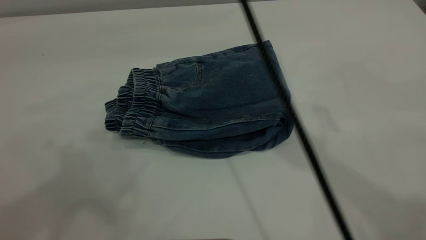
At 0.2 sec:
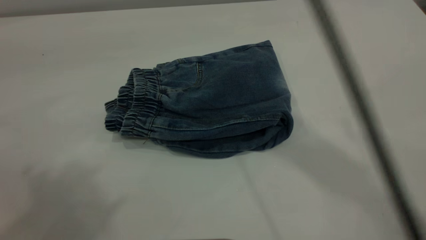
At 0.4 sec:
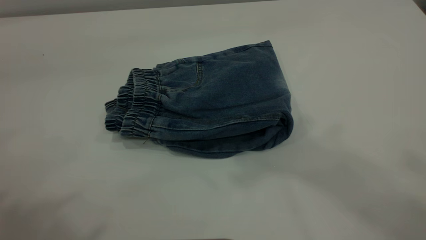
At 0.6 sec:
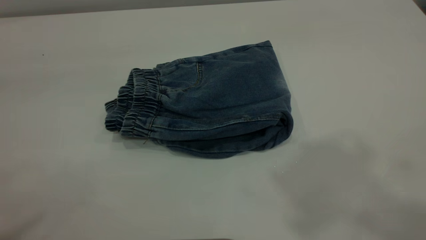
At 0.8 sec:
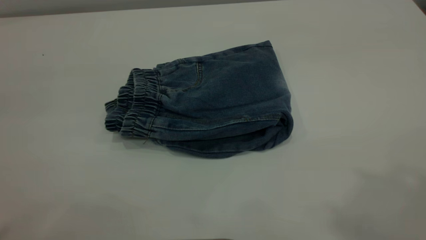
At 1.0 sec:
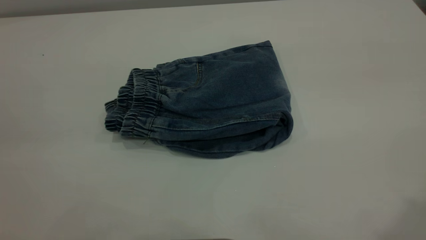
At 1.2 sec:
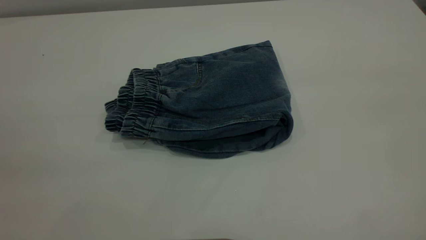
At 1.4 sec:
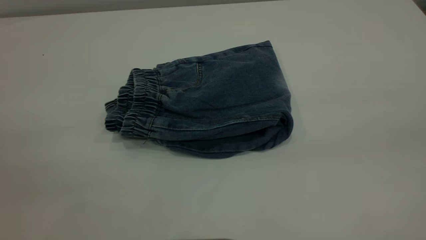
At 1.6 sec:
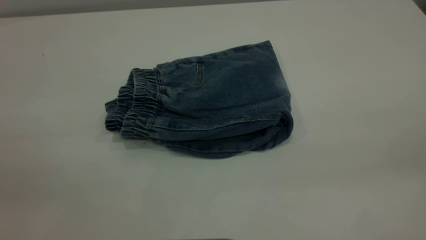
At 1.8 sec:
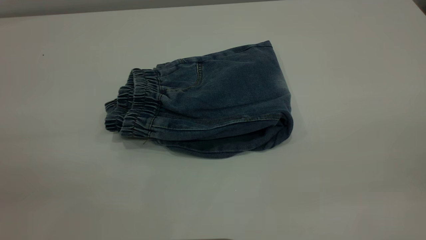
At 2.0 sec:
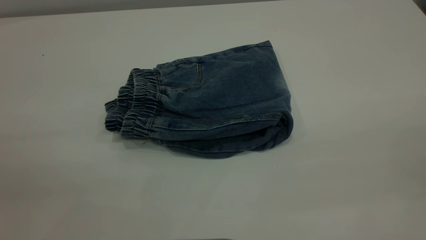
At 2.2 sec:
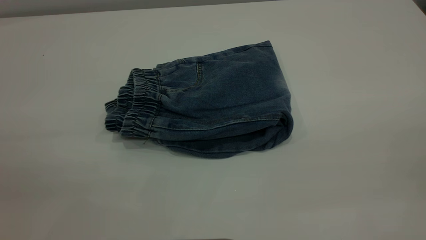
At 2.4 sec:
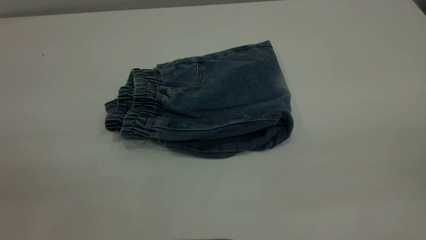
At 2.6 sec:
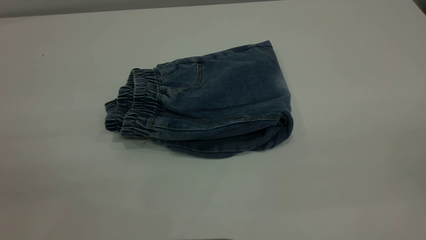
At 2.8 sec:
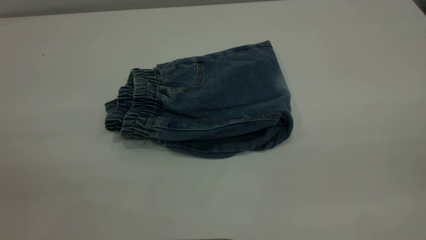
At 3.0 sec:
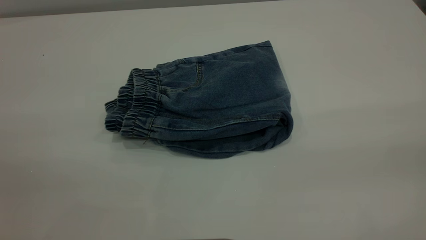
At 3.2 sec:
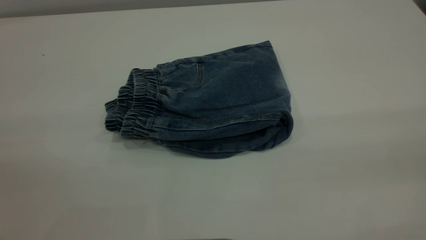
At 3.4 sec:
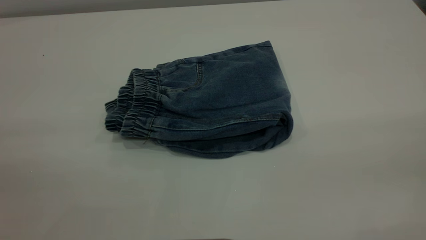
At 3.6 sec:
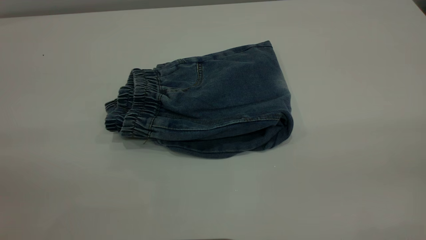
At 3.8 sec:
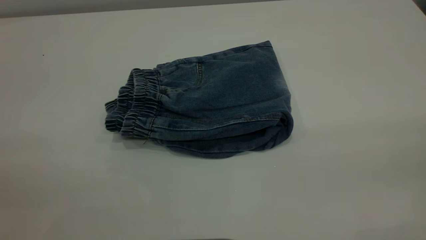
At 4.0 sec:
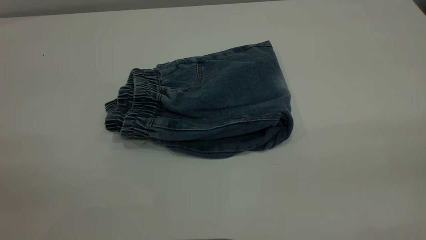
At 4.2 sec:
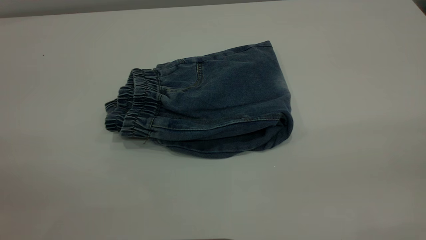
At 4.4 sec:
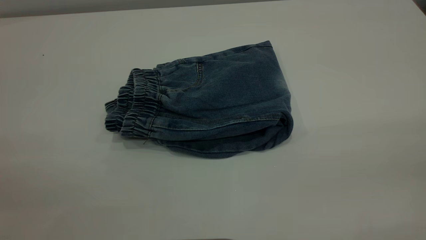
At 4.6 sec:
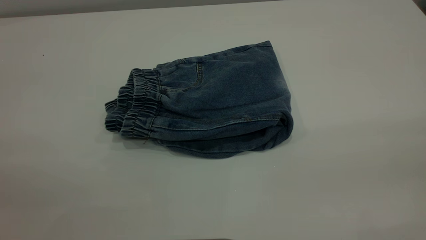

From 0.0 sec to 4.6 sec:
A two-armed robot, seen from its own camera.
From 0.0 sec to 1.6 sec: The right gripper shifts roughly 40 cm backward and to the right. Meanwhile the left gripper moves downward, backward and to the left, approximately 25 cm.
